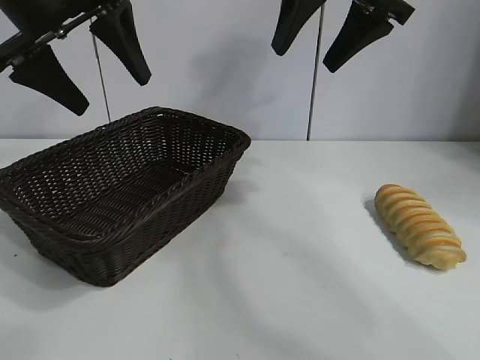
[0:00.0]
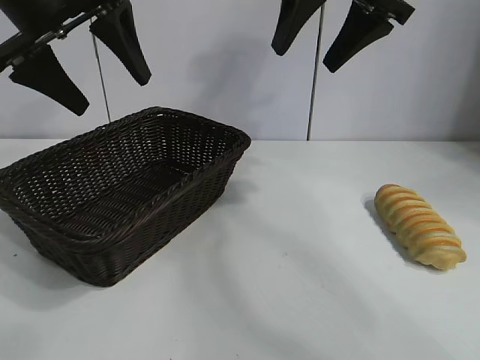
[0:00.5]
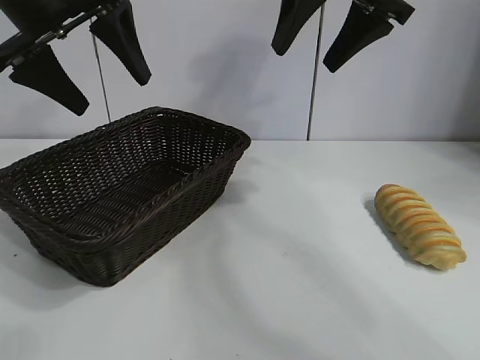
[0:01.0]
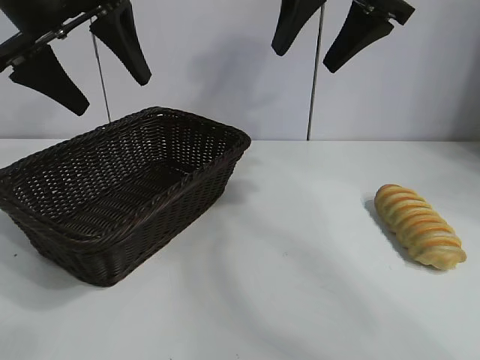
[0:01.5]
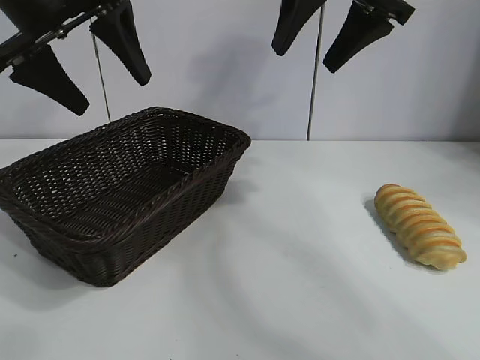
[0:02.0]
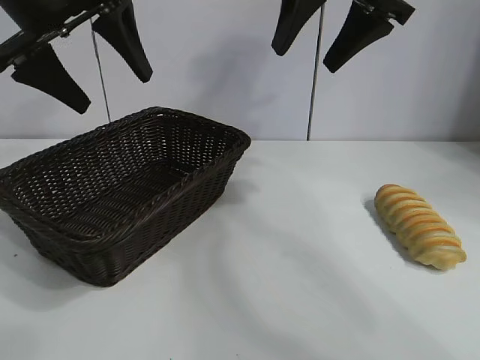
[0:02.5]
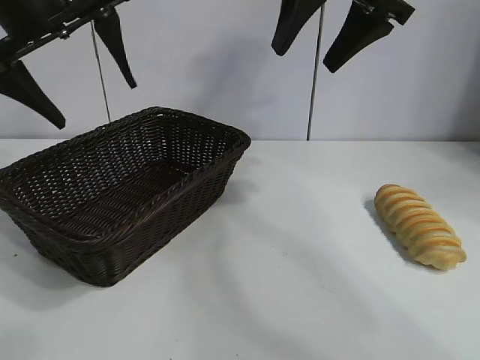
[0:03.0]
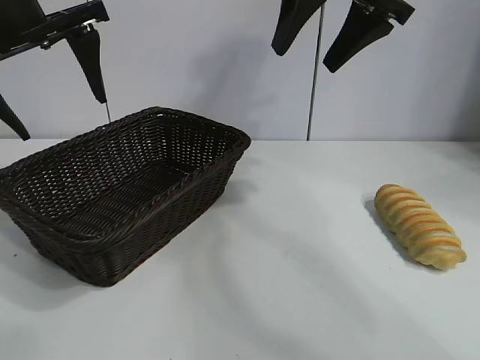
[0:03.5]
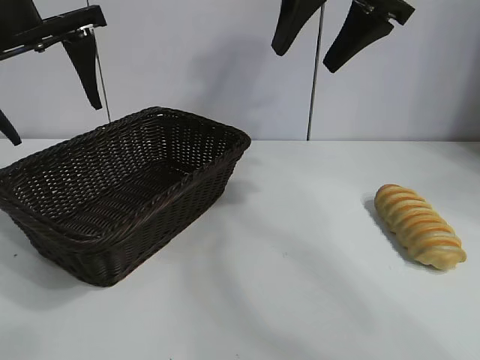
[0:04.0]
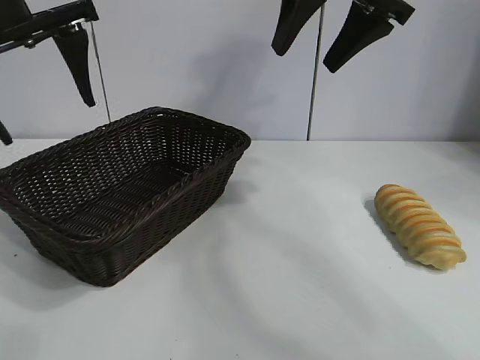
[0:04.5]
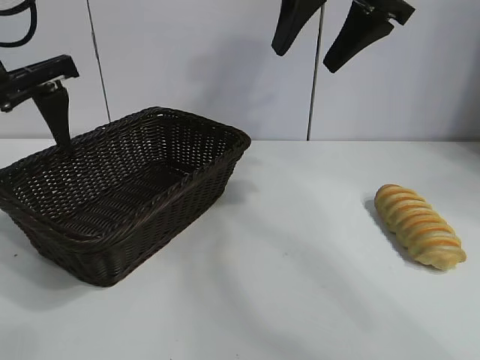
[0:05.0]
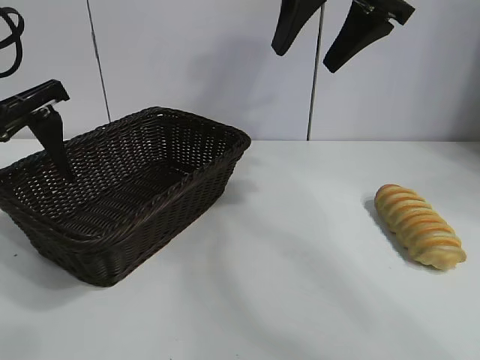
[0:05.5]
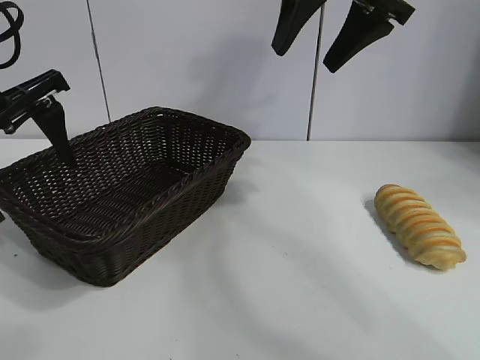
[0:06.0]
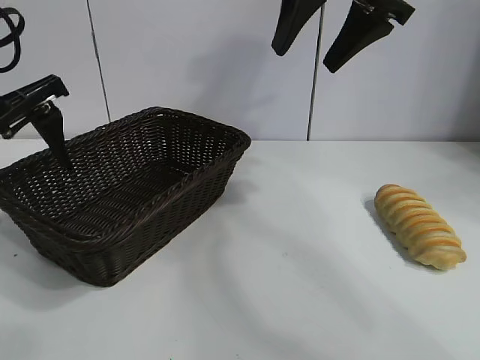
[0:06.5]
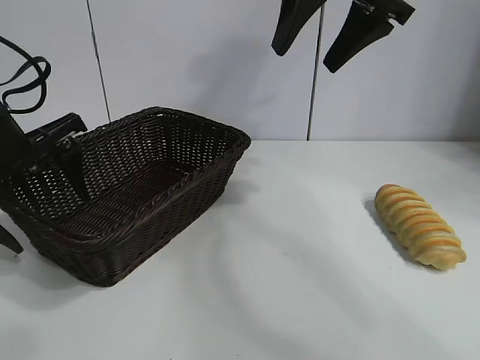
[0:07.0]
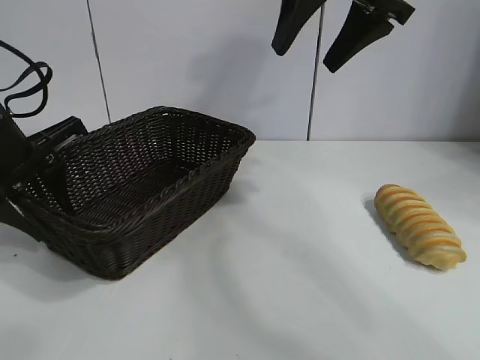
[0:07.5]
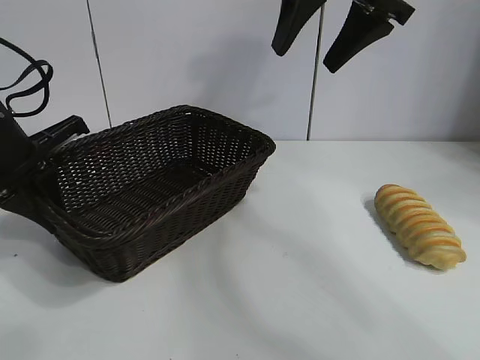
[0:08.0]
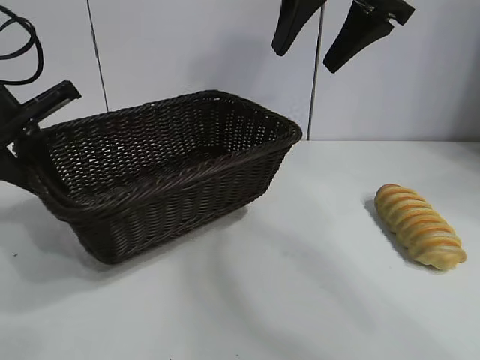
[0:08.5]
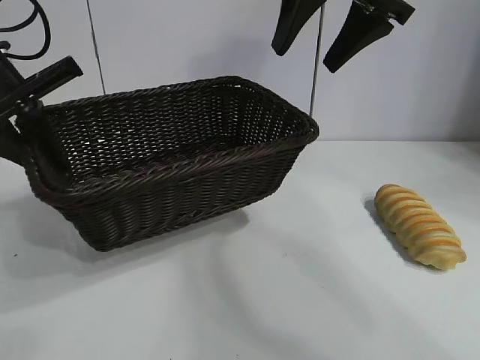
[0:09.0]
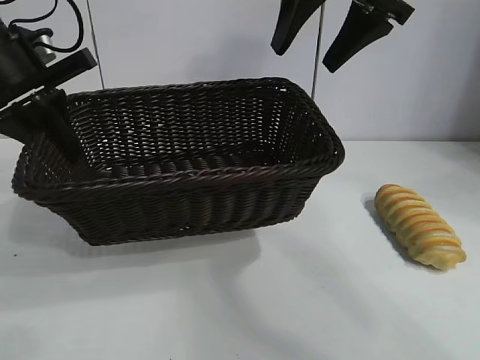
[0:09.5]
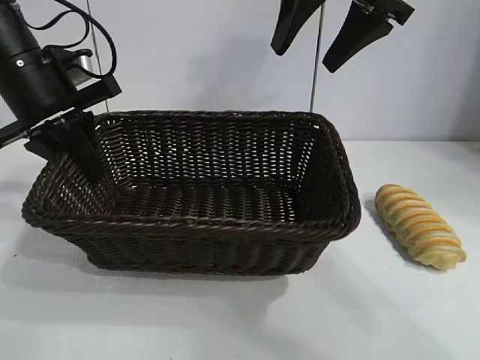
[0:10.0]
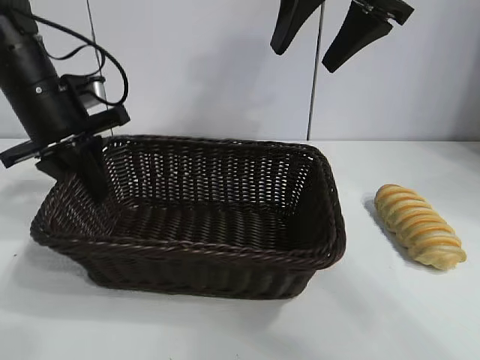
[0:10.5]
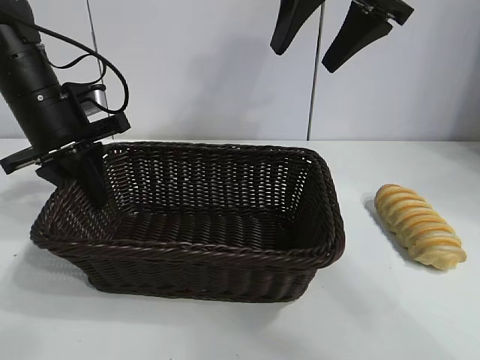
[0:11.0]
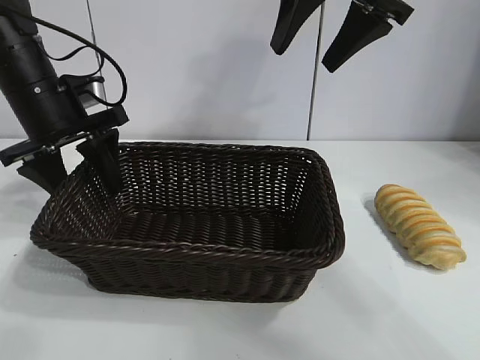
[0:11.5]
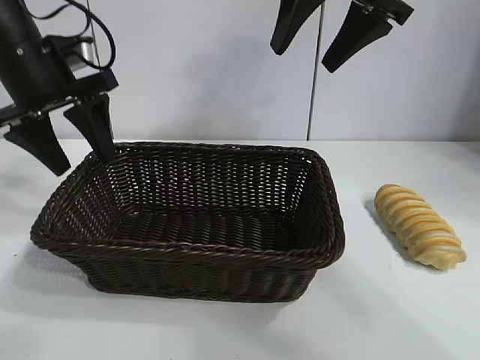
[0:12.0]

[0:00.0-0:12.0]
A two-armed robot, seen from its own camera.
Task of the whole recording: pick up the long bread and put it into the basket.
Step, 0:02.5 to 0:08.0: Grasp the basket with the left gripper.
Step, 0:08.5 to 0:11.0: Place the basket in the center of the table with the left gripper.

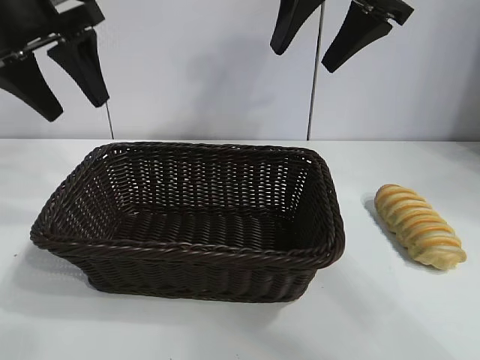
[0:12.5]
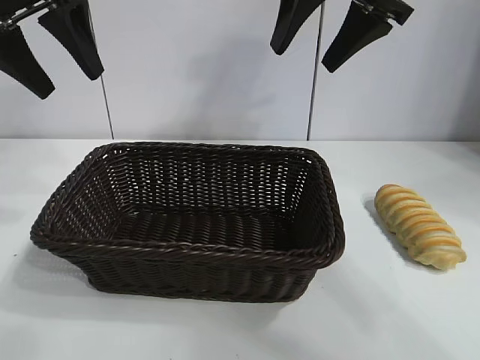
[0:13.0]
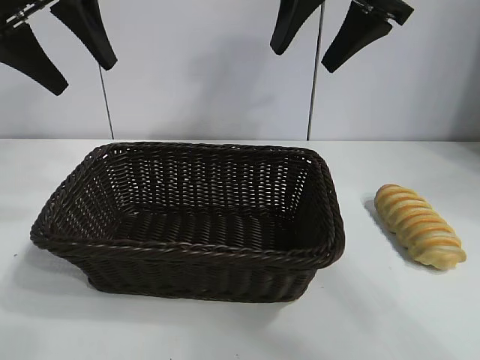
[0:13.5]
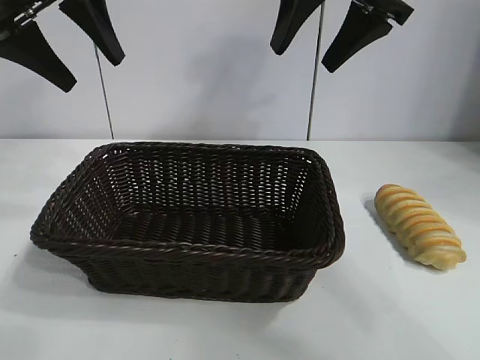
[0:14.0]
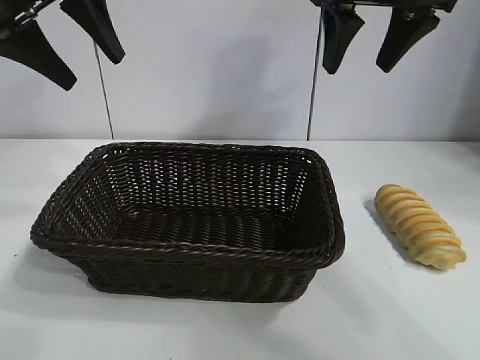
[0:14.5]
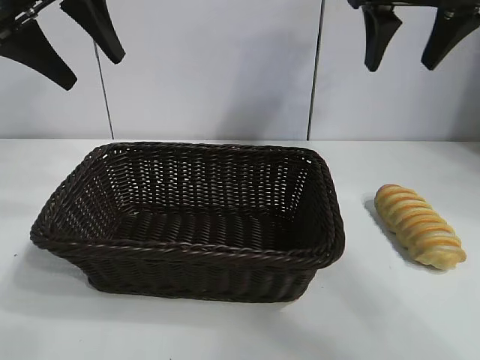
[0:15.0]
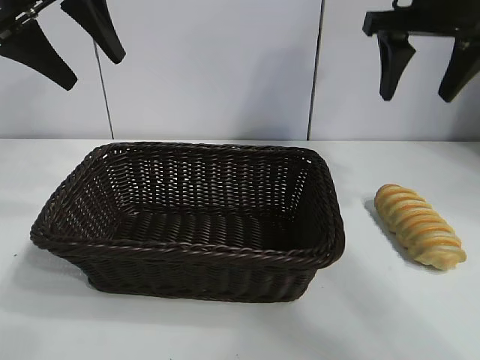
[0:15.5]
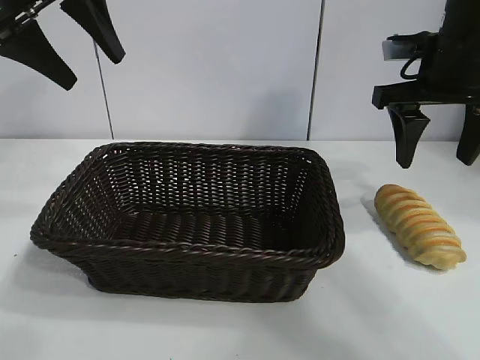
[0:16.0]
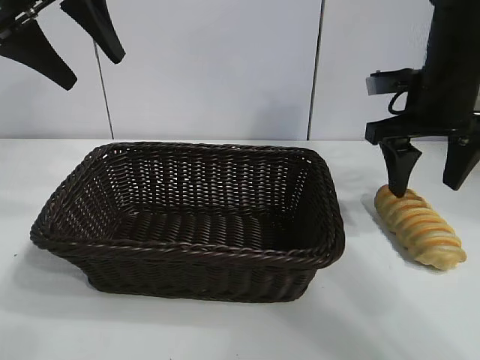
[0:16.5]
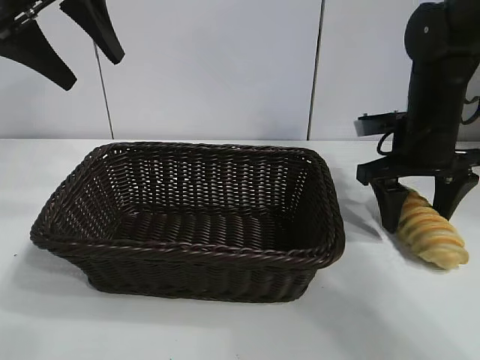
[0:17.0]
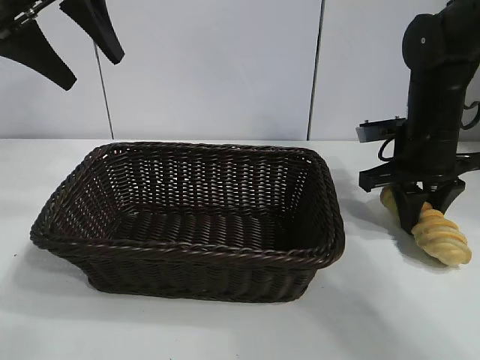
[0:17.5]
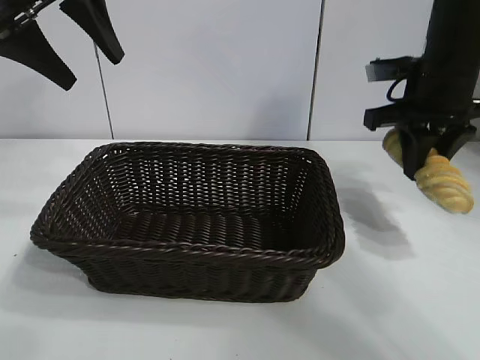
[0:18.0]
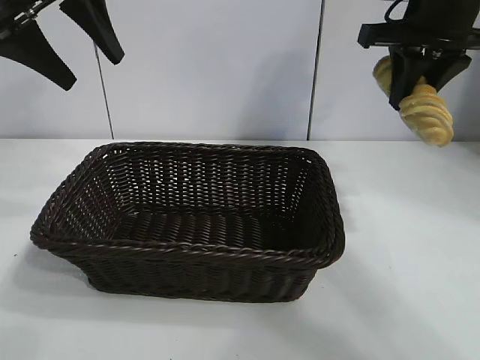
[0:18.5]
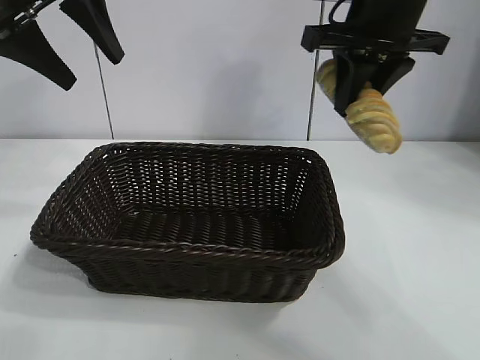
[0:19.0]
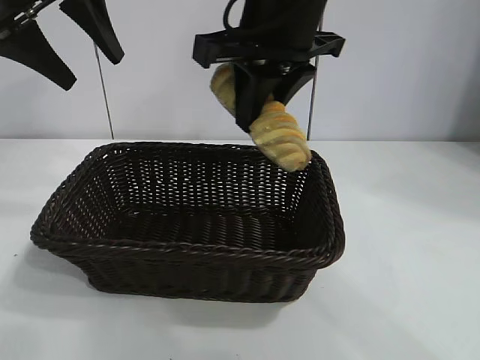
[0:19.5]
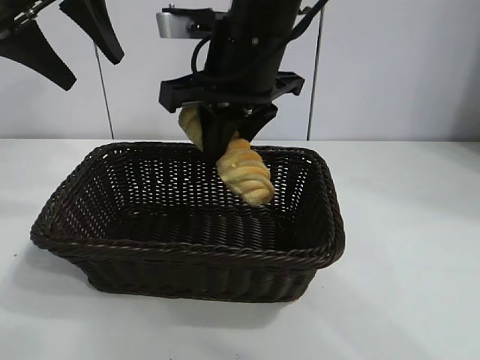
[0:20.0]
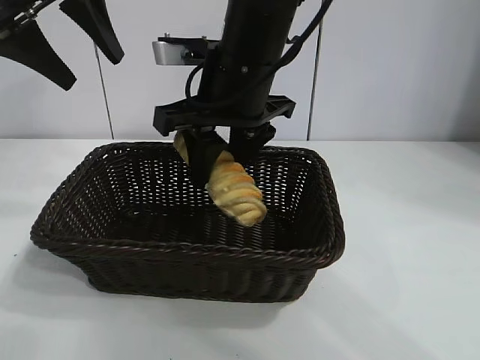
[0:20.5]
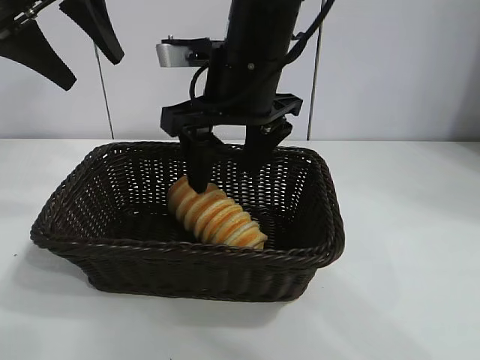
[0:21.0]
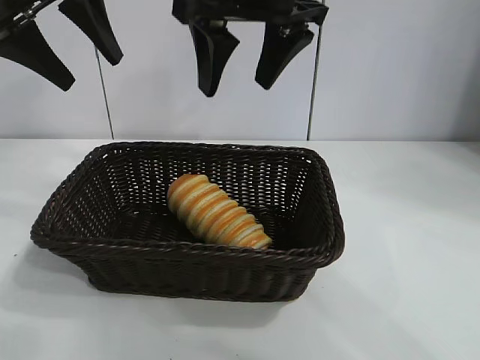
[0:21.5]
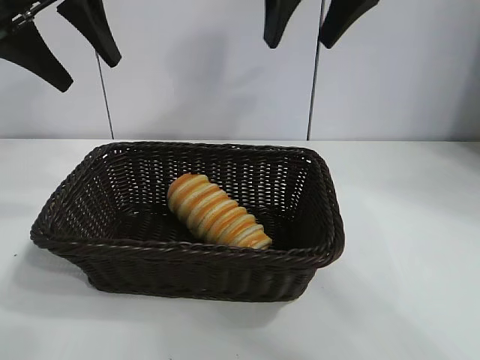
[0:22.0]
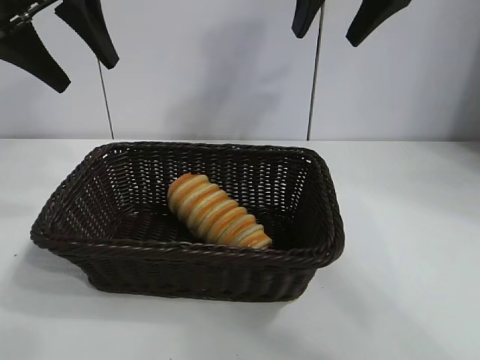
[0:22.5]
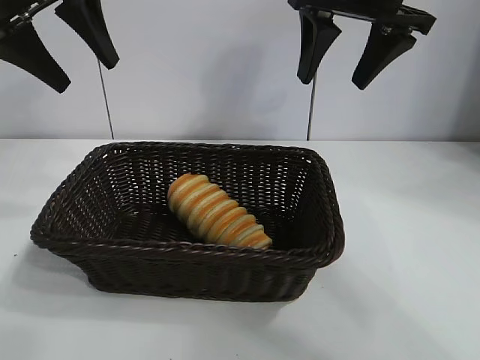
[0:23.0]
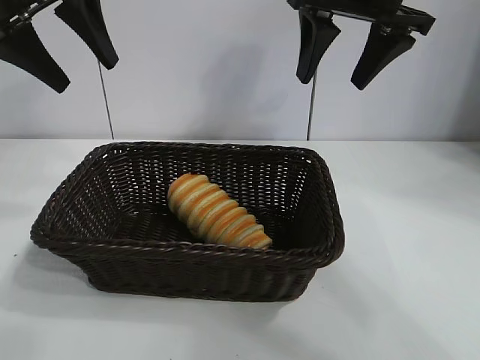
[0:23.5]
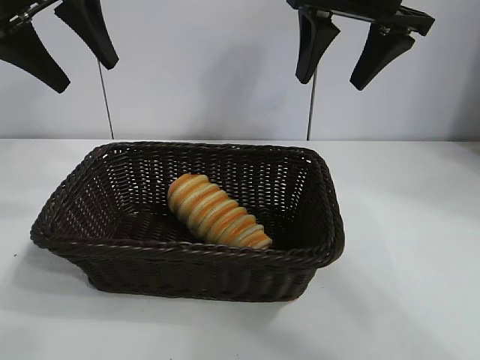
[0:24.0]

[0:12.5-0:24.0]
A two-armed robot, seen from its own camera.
Task of the whole recording: pick up the long bread and put it into the basket.
Step, 0:12.5 to 0:17.5: Grasp the long bread with right gripper.
Step, 0:18.0 to 0:21.0: Place the long bread in the basket with right gripper.
